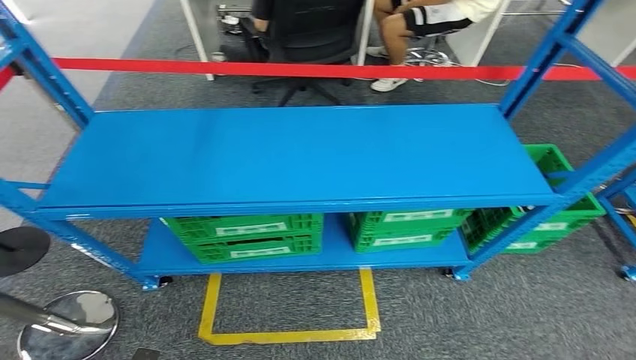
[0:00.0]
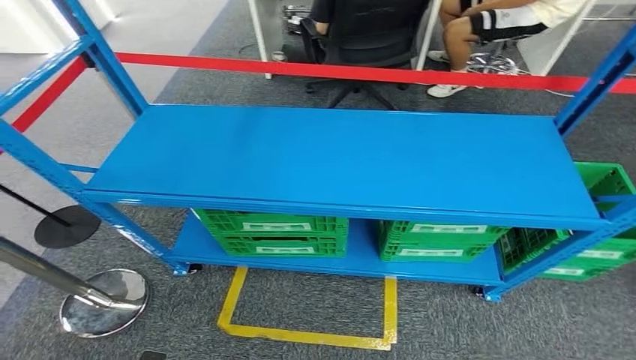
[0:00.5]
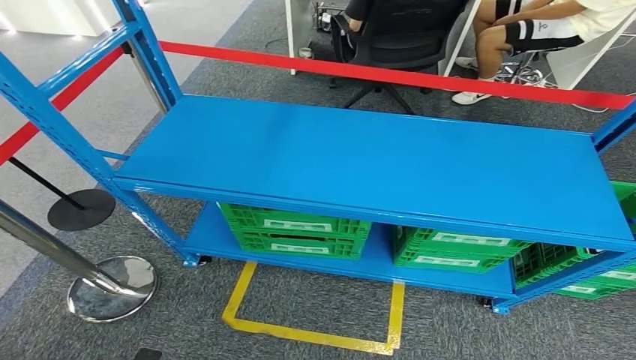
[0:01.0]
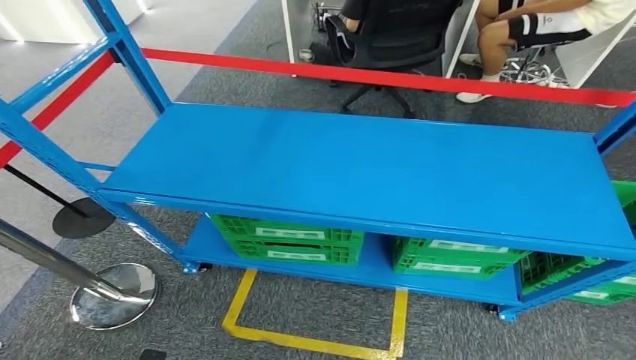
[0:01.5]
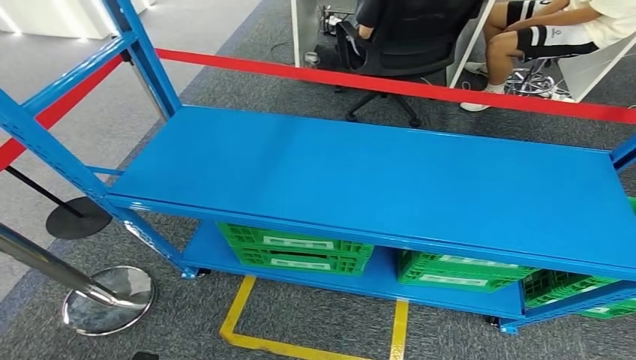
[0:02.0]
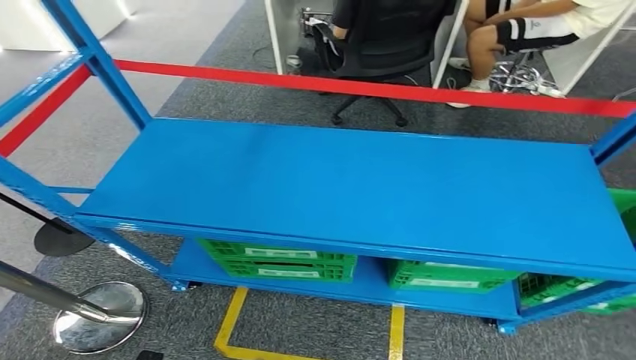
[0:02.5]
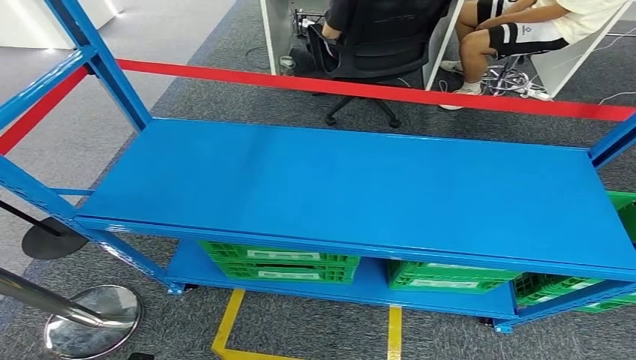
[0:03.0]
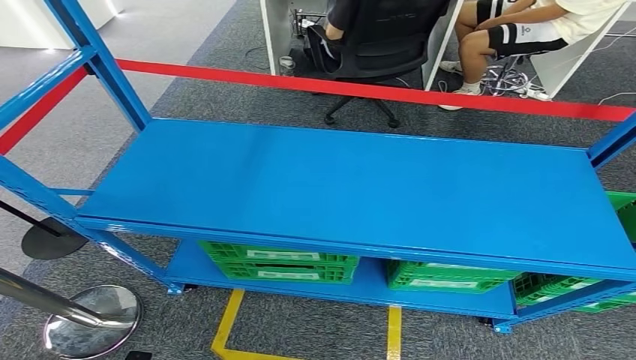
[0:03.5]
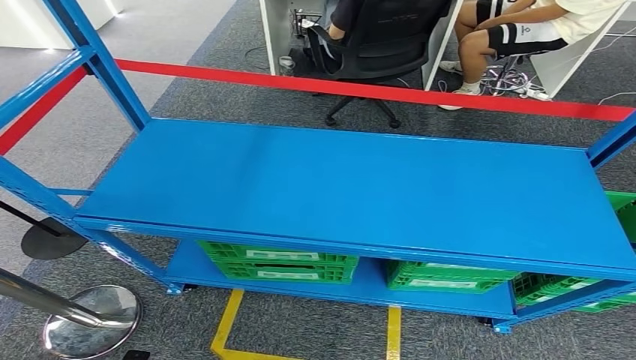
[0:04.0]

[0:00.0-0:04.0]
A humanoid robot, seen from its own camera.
Step, 0:00.0 to 0:04.0: Move to the initial position of the workbench.
